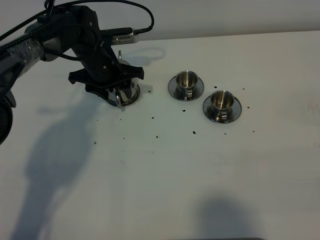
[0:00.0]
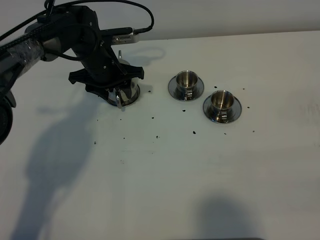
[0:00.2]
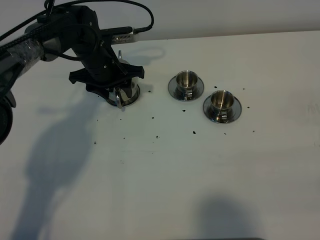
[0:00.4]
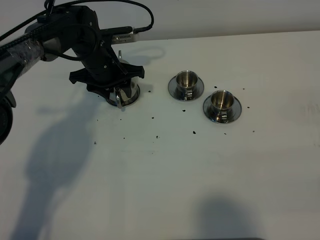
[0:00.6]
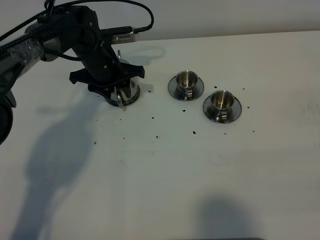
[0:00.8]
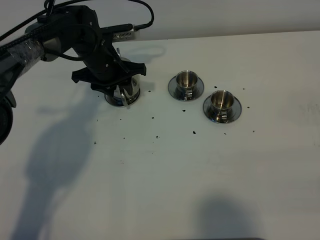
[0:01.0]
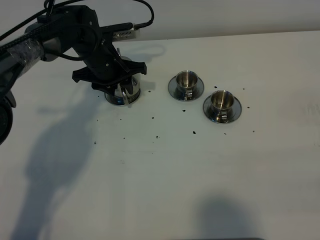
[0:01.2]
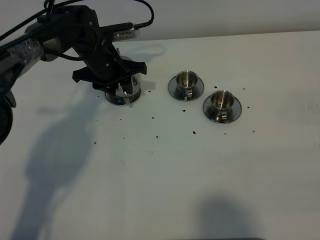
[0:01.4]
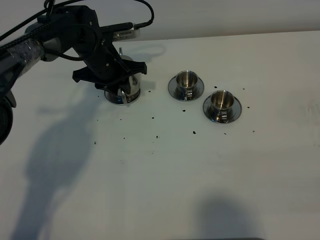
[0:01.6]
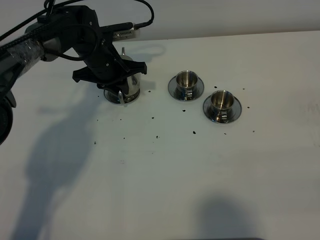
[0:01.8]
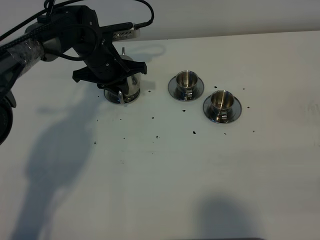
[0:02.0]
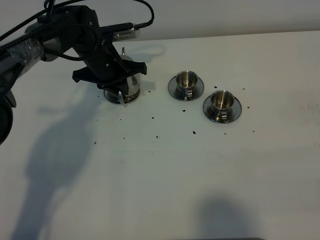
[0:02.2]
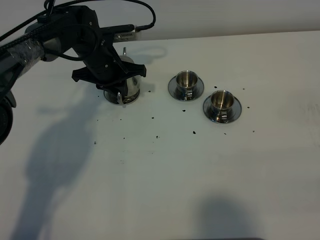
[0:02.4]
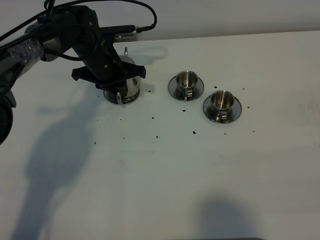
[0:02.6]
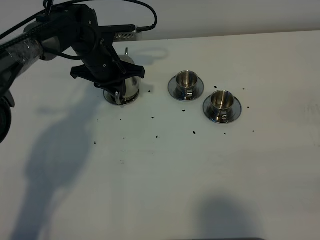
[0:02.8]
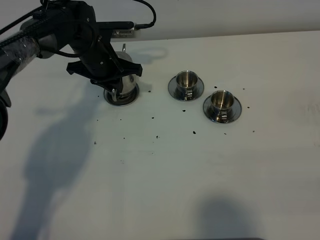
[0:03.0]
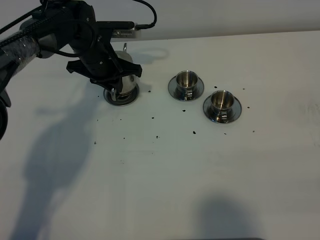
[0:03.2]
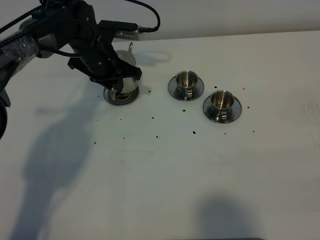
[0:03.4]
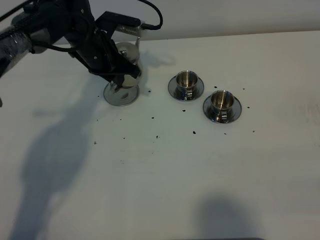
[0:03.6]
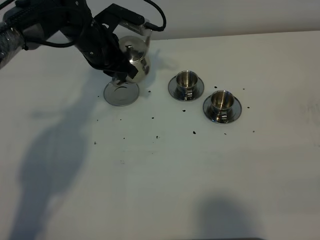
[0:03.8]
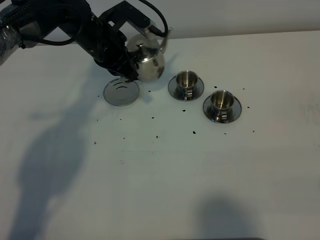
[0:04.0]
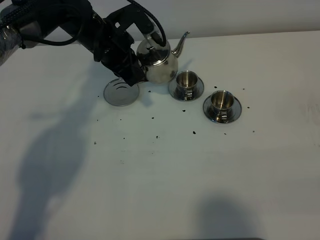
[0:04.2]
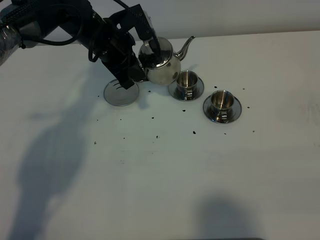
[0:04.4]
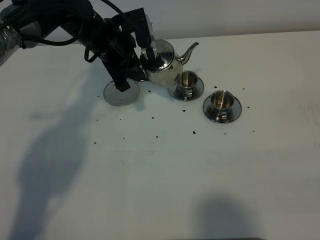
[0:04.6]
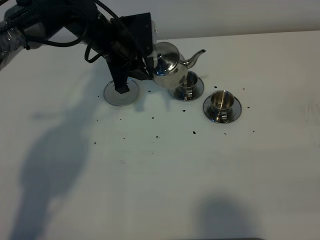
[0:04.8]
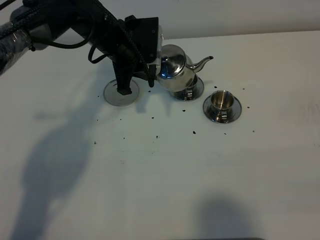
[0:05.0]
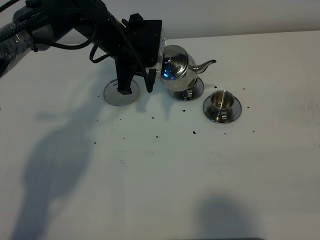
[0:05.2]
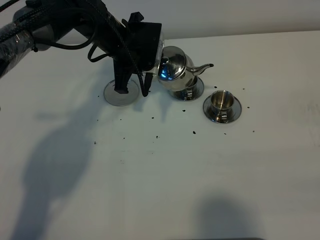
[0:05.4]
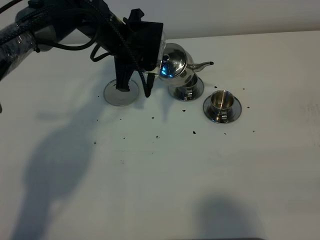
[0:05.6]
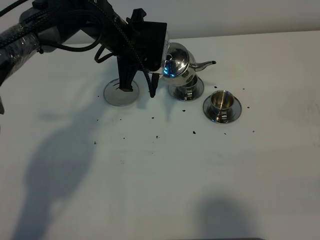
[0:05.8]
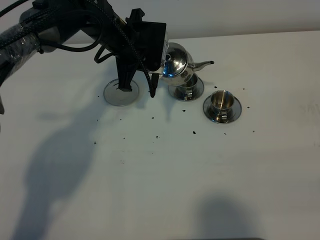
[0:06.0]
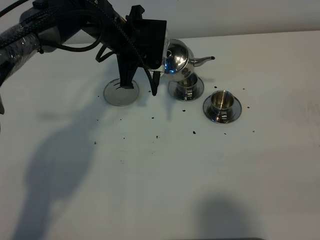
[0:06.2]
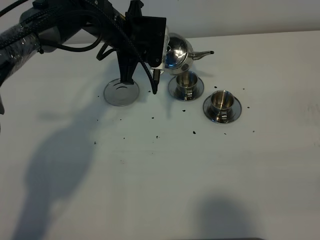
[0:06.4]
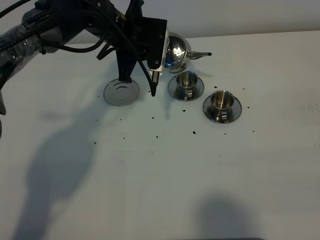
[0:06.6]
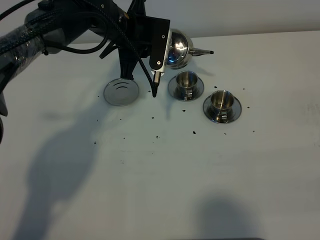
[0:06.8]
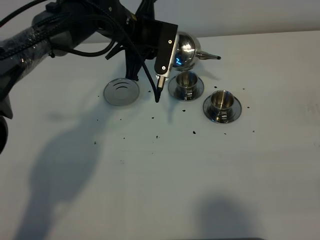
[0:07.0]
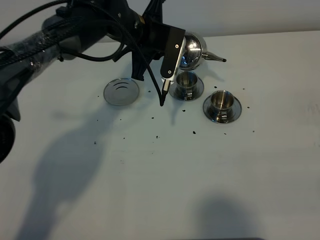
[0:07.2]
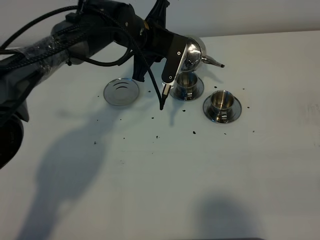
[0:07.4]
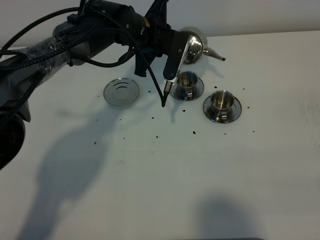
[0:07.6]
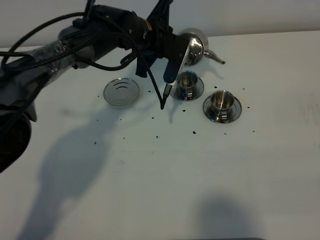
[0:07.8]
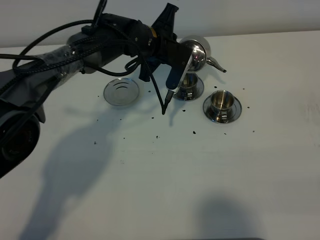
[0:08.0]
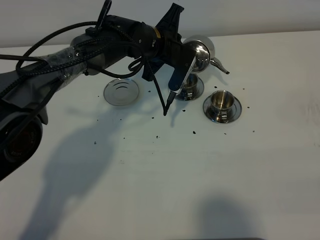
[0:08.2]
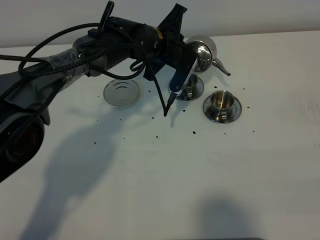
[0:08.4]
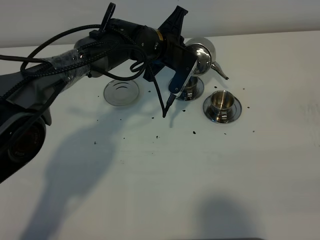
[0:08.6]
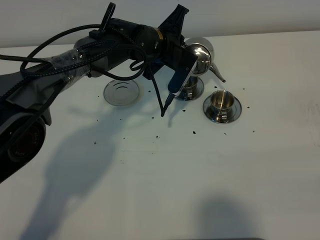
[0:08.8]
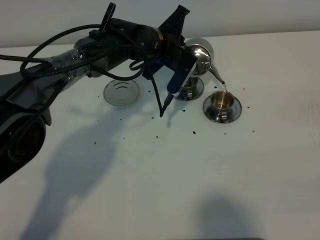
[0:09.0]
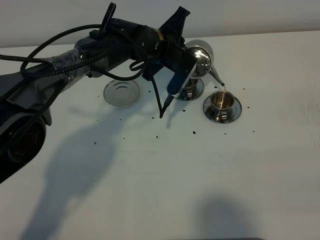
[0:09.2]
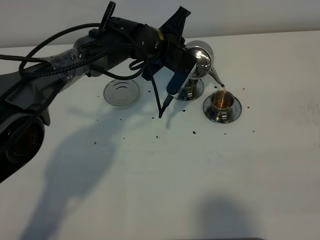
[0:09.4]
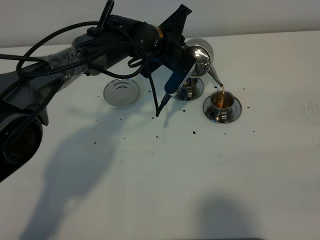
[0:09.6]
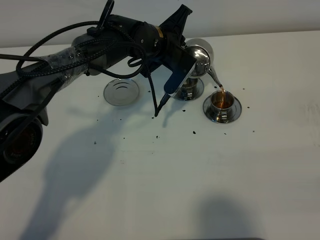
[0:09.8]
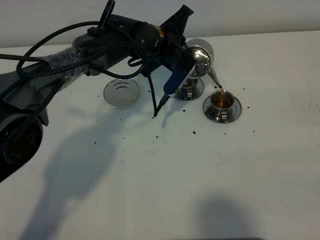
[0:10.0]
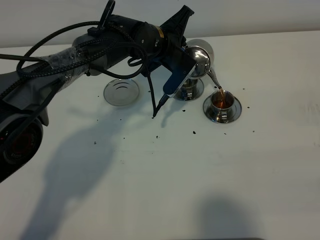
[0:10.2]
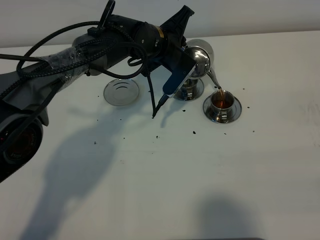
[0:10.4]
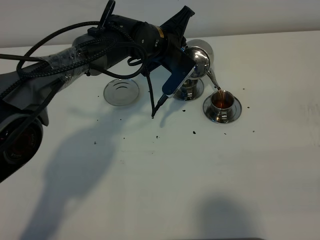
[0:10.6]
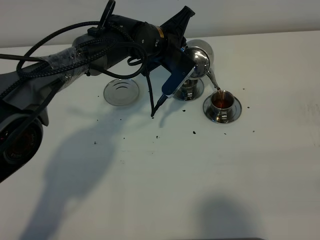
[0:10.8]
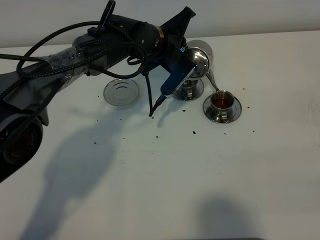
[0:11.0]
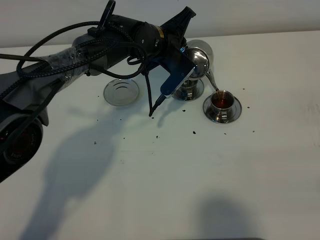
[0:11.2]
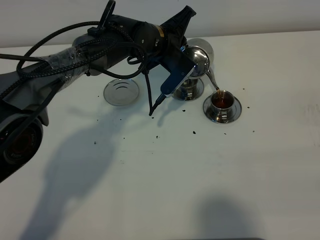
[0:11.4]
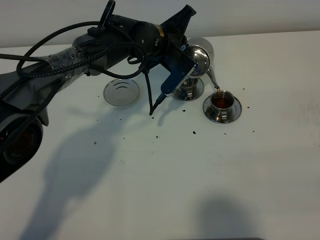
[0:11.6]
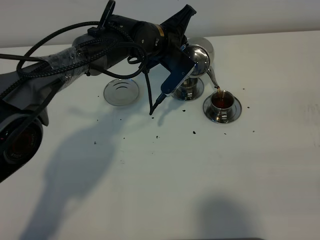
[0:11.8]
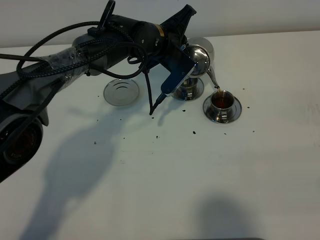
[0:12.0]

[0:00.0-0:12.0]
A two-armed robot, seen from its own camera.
Task of the whole recording: grasp the stainless steel teapot and pour the tea into the two stainless steel teacups one by one, put the stainless steel teapot back in its original place.
Step, 0:00.0 to 0:03.2: Pick up the teapot with the left gripper.
0:00.0 to 0:01.6: The left gripper closes.
0:01.6 to 0:03.0: The grippers move only a little.
0:03.0 to 0:04.4: The left gripper is displaced upward by some 5 cm.
0:07.6 to 0:09.0: The grippers make only small movements.
0:09.0 to 0:10.4: The grippers make only small movements.
0:10.4 to 0:12.0: Both grippers stay put.

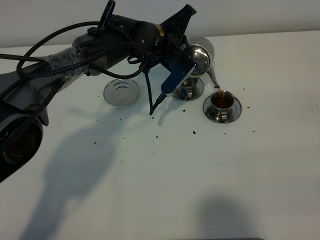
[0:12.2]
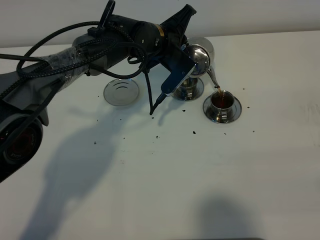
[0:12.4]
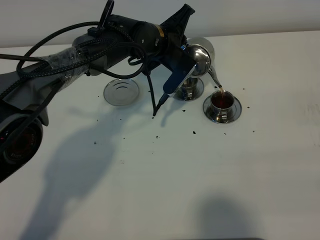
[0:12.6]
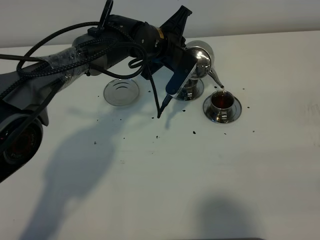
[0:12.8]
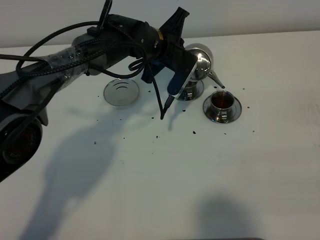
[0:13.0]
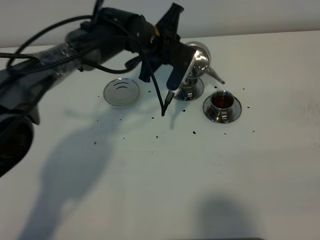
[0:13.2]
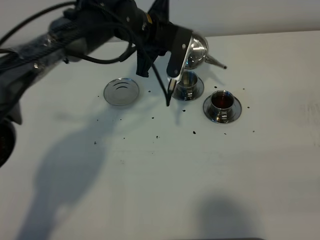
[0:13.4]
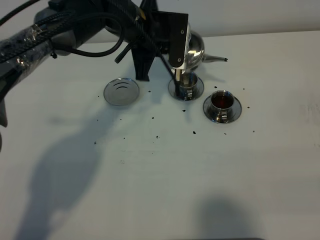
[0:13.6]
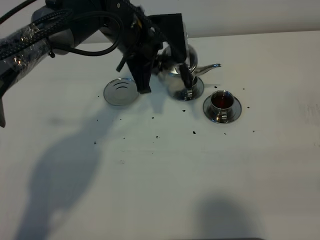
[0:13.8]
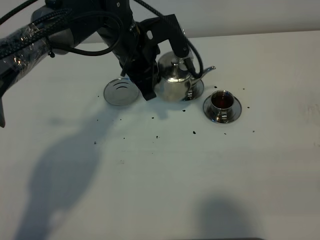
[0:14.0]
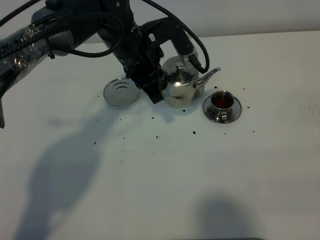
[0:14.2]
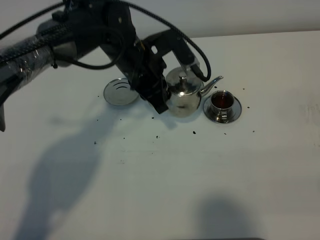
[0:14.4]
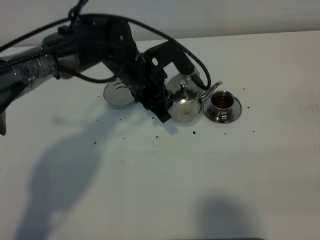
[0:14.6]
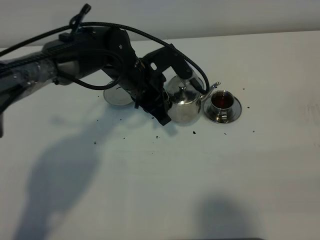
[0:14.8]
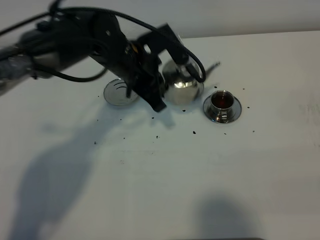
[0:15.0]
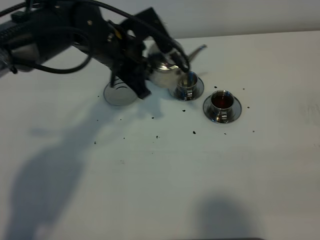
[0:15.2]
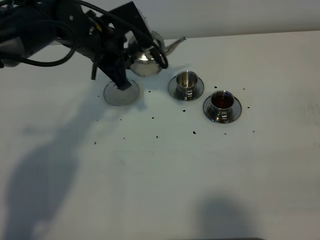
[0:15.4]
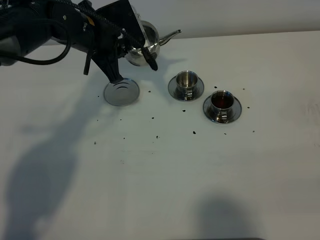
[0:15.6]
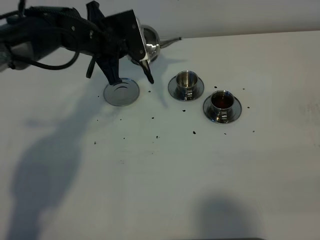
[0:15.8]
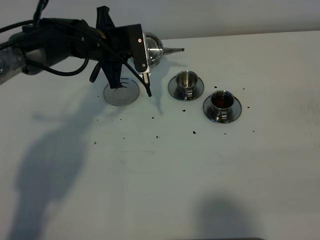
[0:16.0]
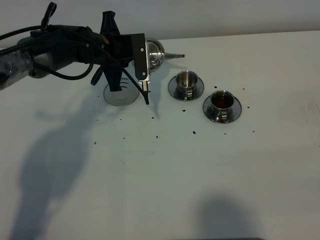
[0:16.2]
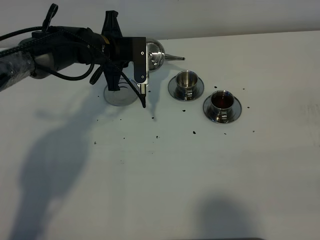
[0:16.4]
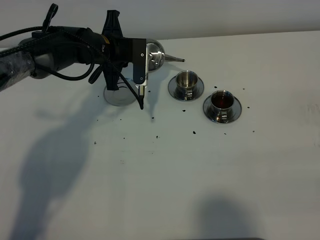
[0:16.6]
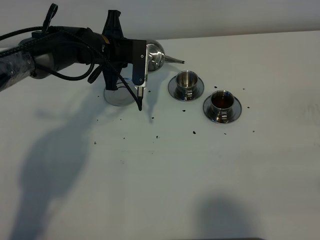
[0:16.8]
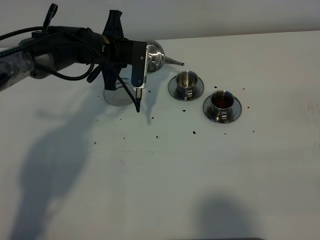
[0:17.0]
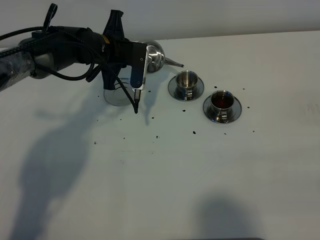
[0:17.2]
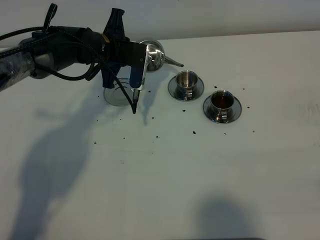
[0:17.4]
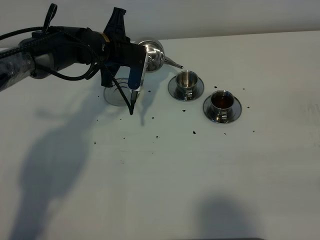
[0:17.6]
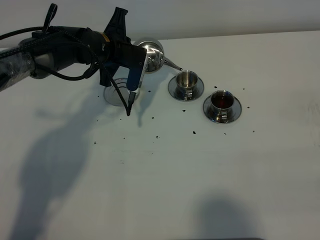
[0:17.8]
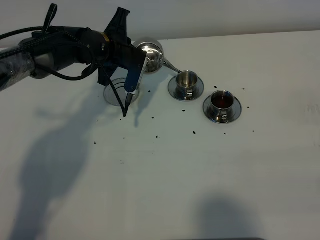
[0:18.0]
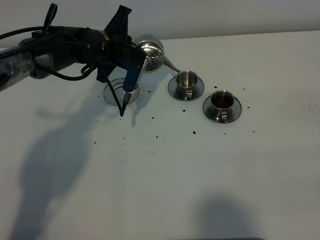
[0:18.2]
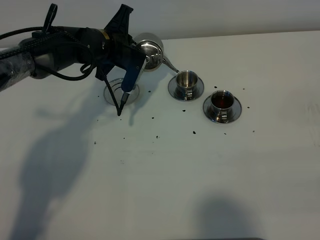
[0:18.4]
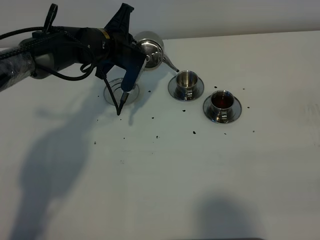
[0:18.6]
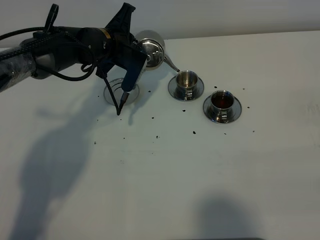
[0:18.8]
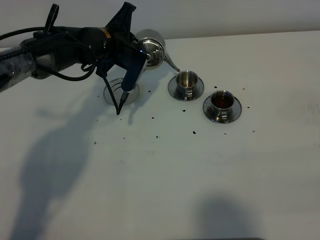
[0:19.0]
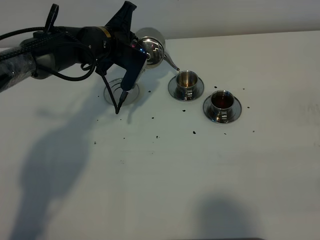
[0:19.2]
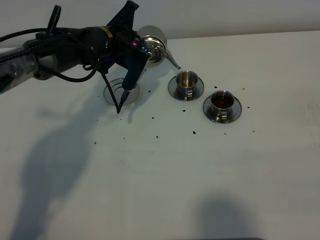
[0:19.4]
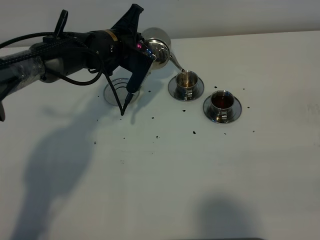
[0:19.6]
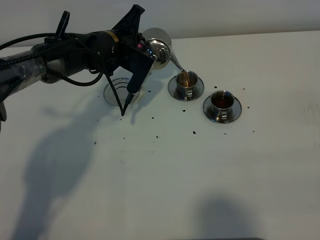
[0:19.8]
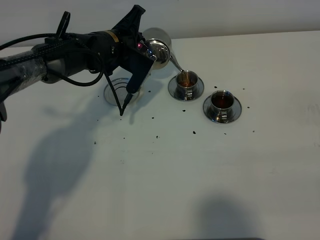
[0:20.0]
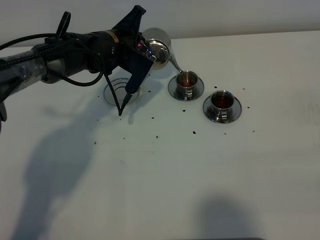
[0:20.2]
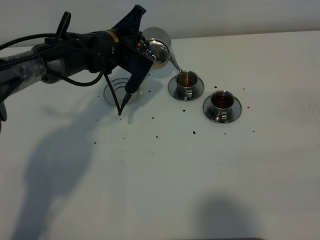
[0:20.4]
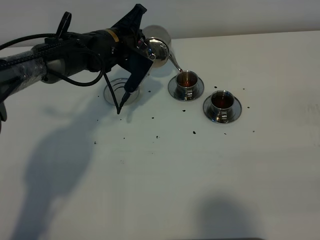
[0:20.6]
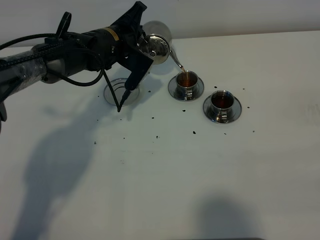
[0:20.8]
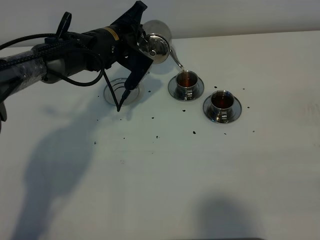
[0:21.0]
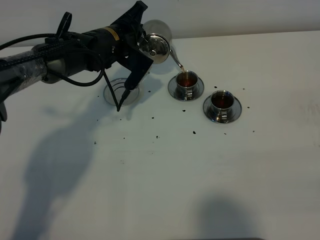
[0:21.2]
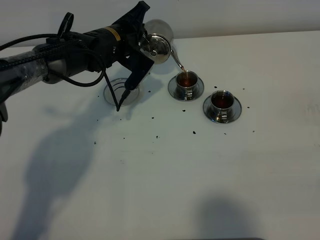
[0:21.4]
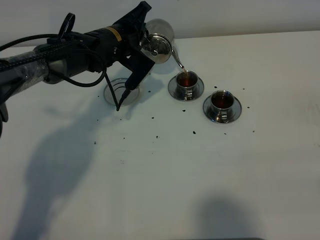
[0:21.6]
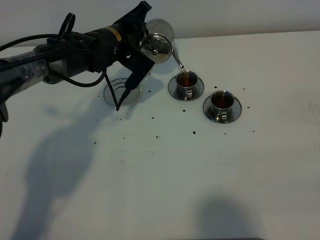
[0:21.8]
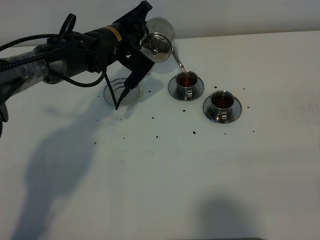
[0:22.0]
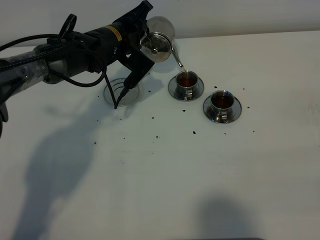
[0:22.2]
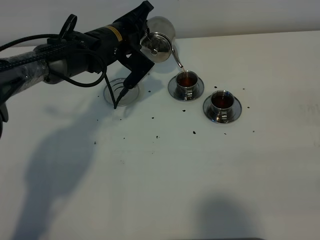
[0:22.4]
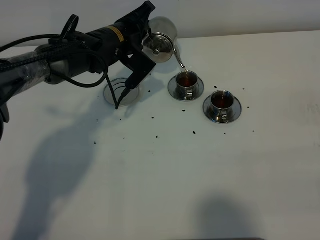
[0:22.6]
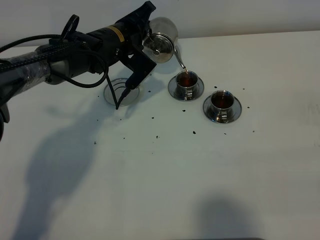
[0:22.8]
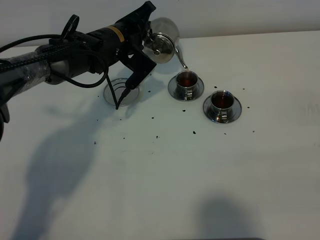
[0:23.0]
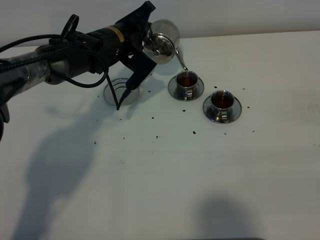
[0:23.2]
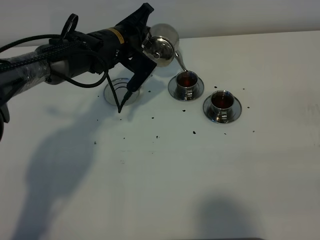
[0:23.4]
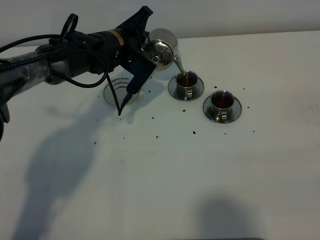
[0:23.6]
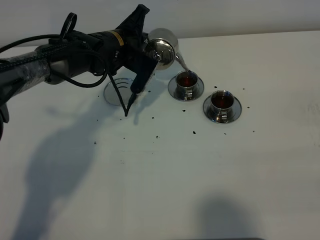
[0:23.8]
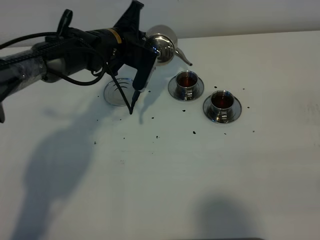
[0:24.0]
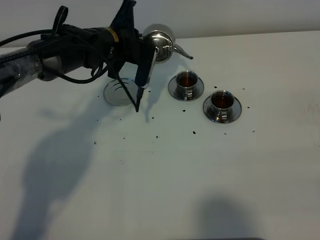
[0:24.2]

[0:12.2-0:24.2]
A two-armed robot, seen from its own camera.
Task of the whole recording: grasp the stainless steel teapot and pour the tea into the two stainless steel teacups one by one, put the stainless steel teapot back in its original place.
Step, 0:12.2 to 0:23.8: Pour tea into the teacup with the left gripper.
0:12.2 to 0:13.8: The left gripper shifts some 5 cm backward and upward.
0:15.2 to 0:16.6: The left gripper travels downward and forward by approximately 10 cm.
0:18.2 to 0:21.2: The grippers move only a little.
0:21.2 to 0:22.6: The grippers move only a little.
